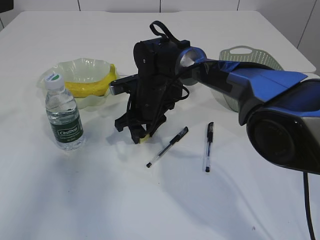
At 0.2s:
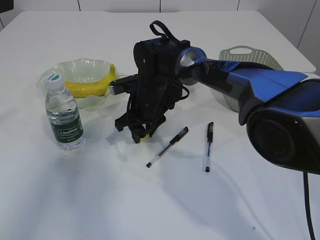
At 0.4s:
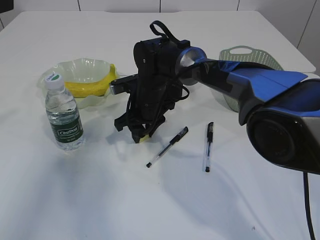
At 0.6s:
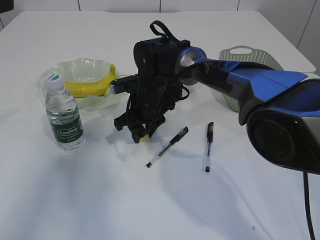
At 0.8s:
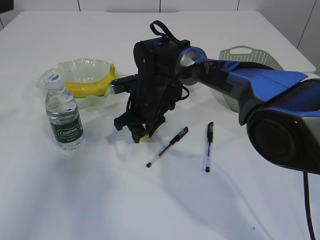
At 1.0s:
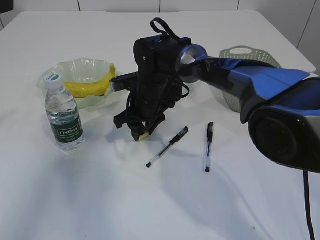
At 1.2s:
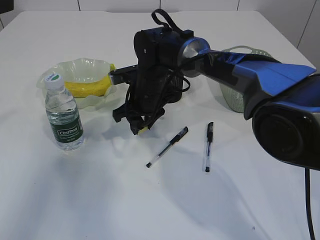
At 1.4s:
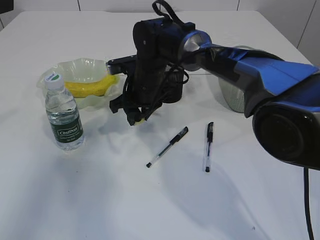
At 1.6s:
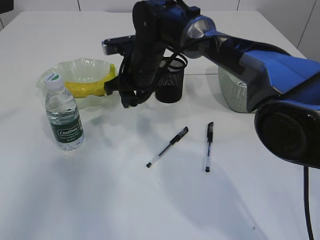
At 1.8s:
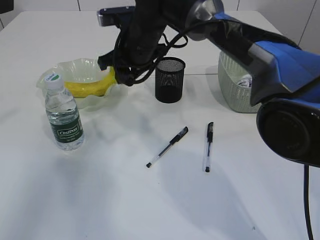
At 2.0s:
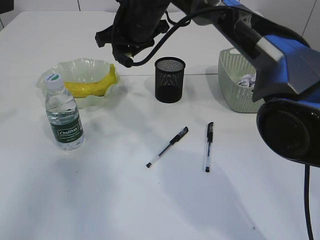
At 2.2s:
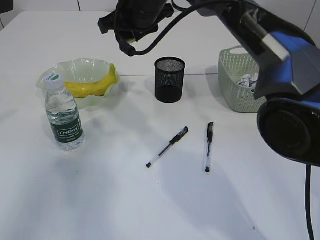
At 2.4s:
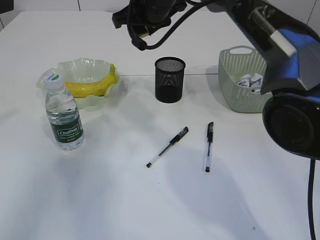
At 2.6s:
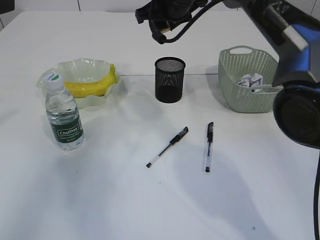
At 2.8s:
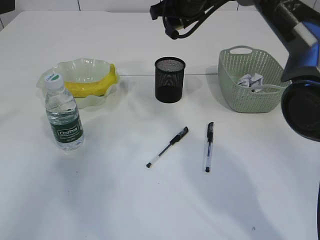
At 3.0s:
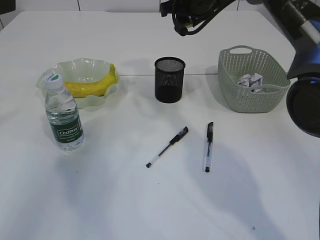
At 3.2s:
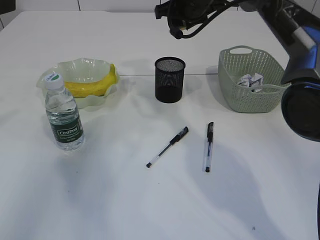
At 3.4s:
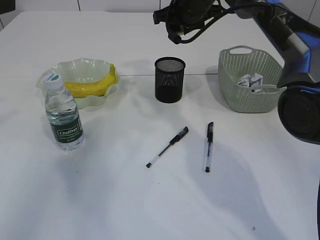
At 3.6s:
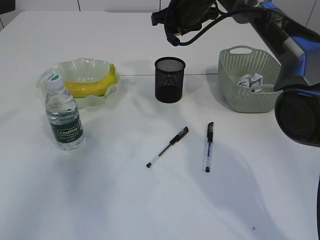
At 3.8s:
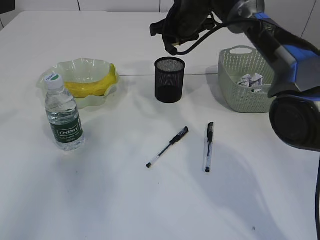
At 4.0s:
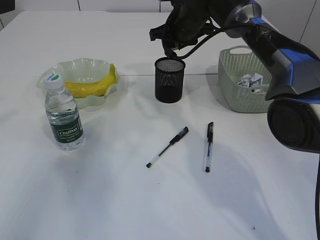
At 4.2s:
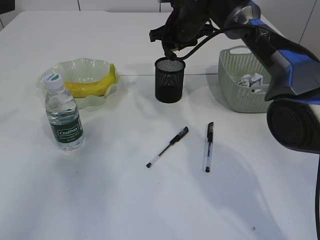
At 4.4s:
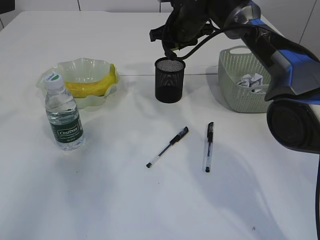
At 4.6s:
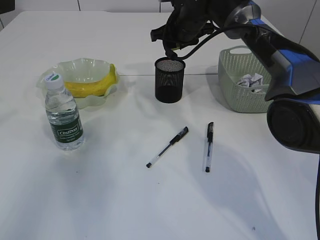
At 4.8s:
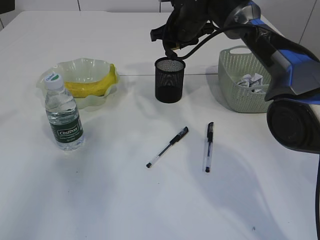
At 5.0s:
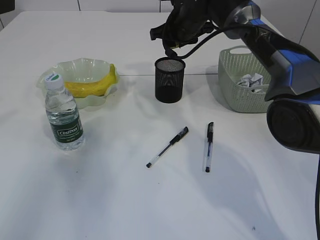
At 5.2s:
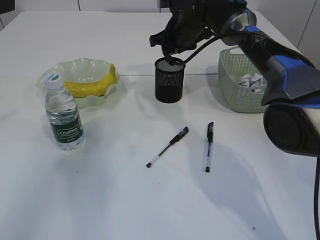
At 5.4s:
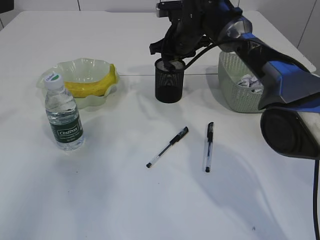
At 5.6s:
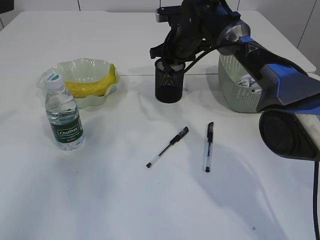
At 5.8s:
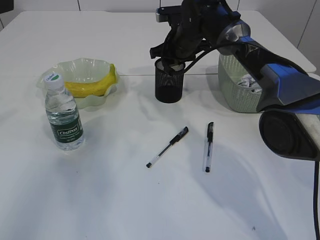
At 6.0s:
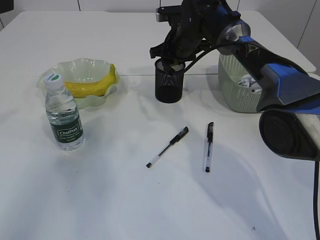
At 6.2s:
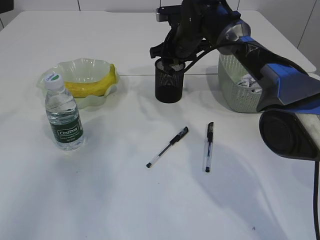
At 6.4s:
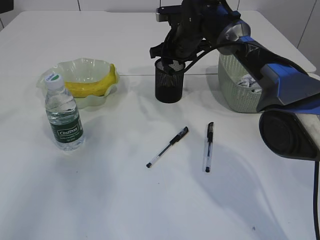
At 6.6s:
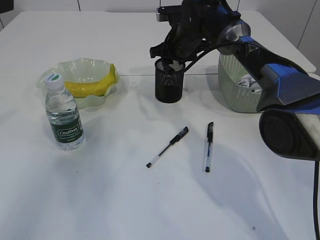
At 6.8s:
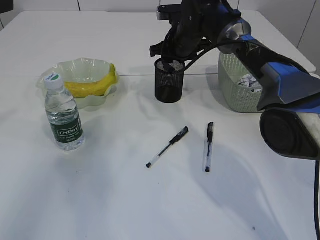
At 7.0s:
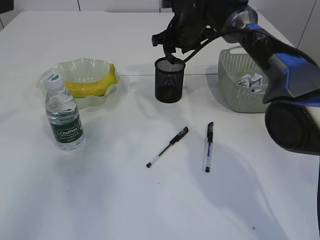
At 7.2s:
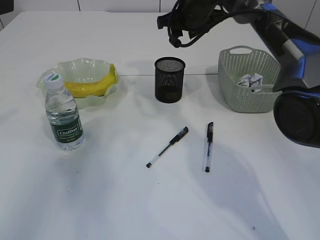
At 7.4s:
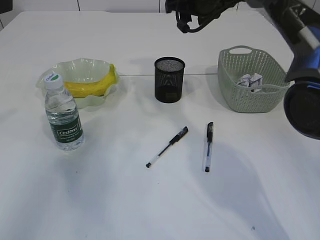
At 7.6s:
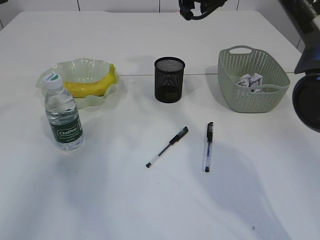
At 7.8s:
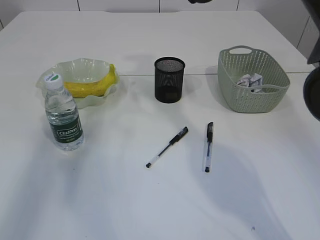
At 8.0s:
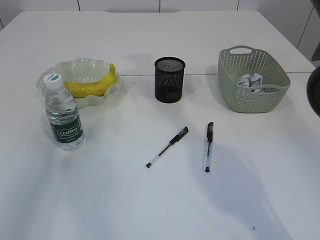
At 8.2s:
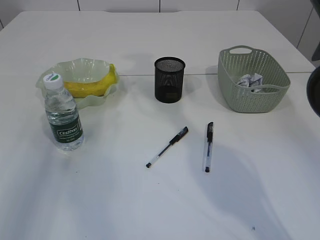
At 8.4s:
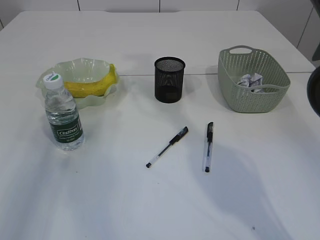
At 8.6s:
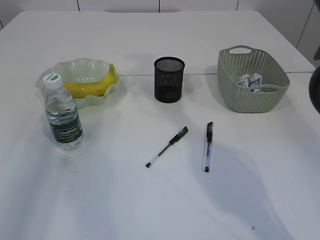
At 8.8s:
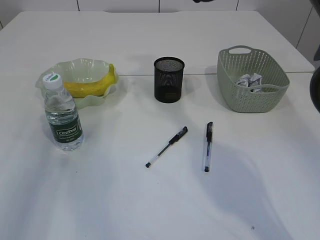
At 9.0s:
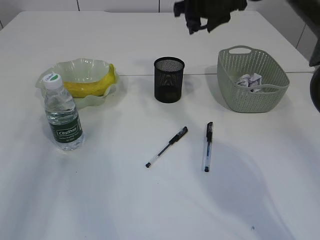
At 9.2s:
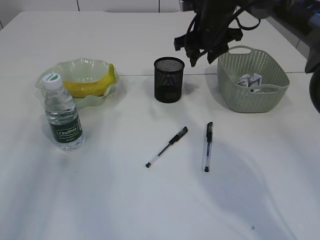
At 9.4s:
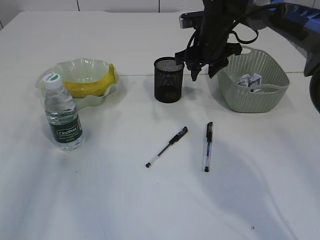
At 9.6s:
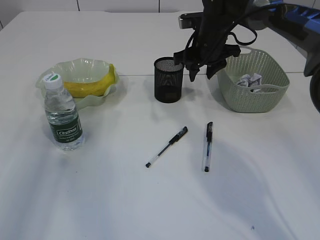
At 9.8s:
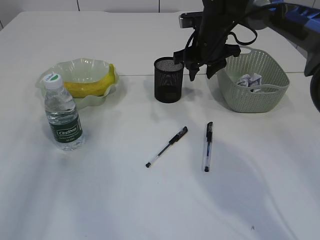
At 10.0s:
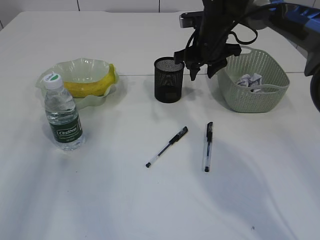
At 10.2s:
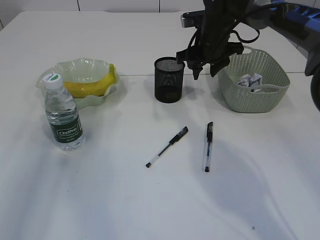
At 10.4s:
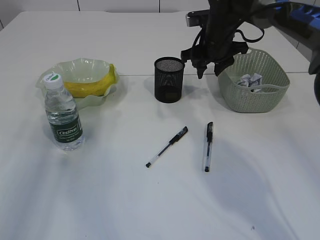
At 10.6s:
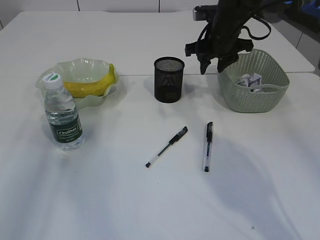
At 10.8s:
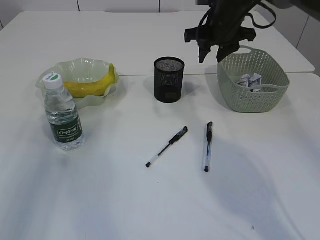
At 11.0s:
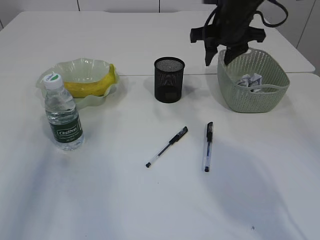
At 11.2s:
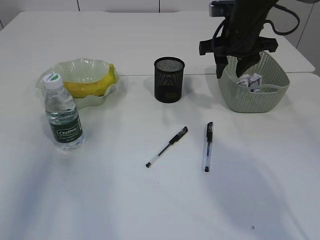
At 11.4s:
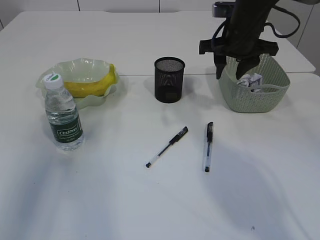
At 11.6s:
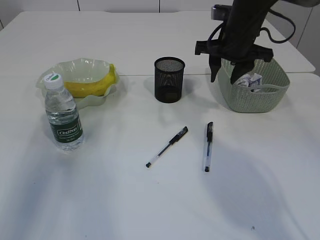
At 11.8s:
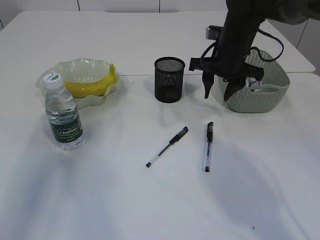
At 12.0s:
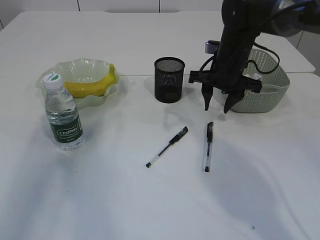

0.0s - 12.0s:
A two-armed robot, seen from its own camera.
Step, 1.6s - 7.0s: Place the eraser into the pen holder.
0.0s - 1.6s: The right gripper is displaced upward by roughly 5 cm.
1.6s - 3.0s: The right gripper moves upward and to the right, approximately 15 cm.
3.0s - 4.4s: The right gripper is displaced downward by approximately 5 cm.
4.4s - 6.0s: The grippers make only small movements.
6.0s - 7.6s: The right gripper travels upward by about 15 cm.
7.6s - 9.0s: The left gripper moves to the left, approximately 5 cm.
9.0s - 10.4s: The right gripper shifts approximately 10 cm downward.
10.4s - 12.0s: The right gripper changes place by roughly 5 cm.

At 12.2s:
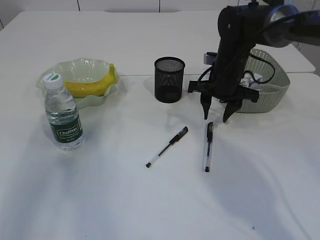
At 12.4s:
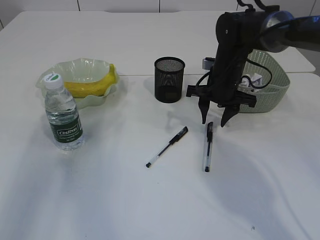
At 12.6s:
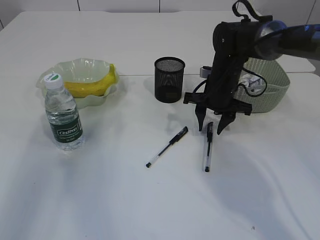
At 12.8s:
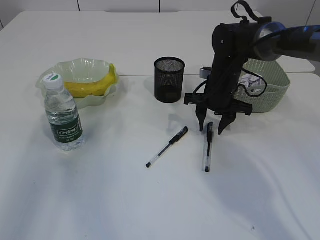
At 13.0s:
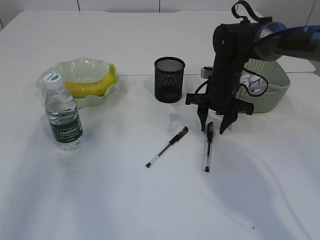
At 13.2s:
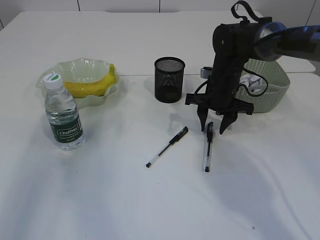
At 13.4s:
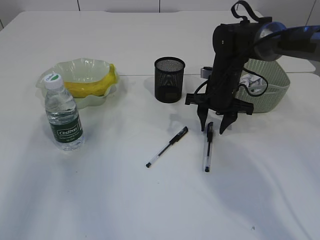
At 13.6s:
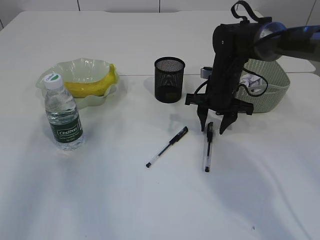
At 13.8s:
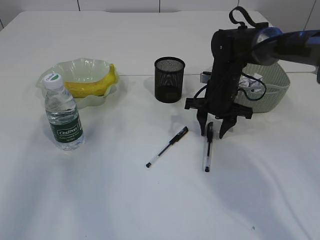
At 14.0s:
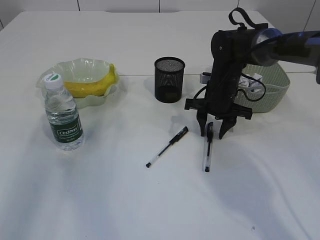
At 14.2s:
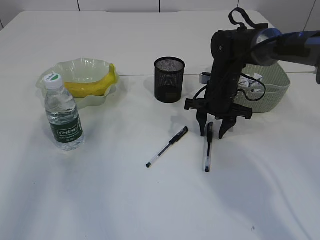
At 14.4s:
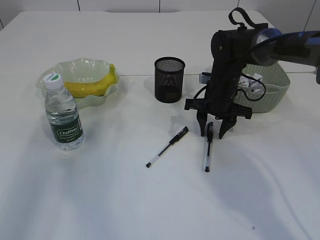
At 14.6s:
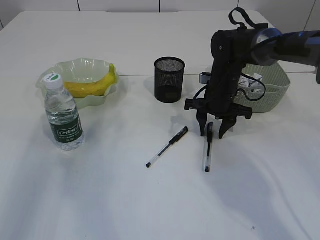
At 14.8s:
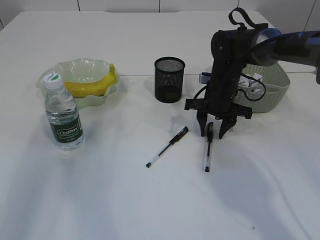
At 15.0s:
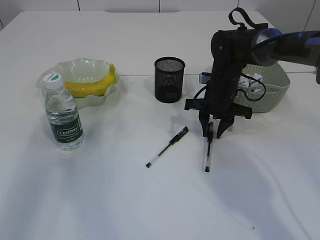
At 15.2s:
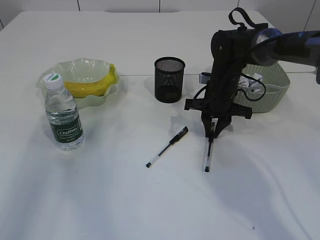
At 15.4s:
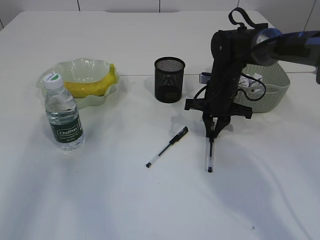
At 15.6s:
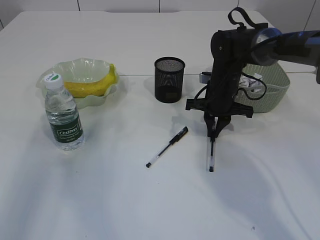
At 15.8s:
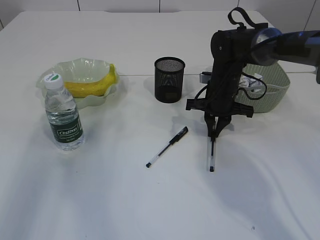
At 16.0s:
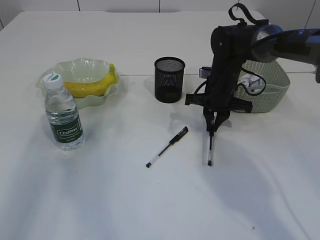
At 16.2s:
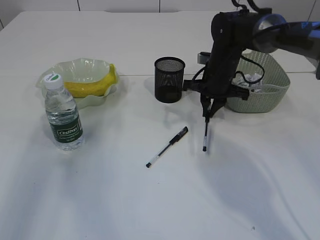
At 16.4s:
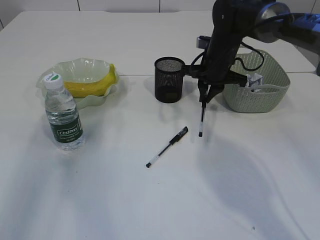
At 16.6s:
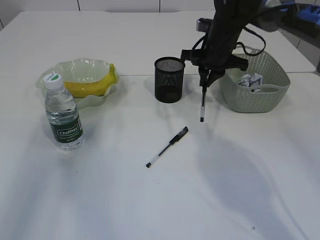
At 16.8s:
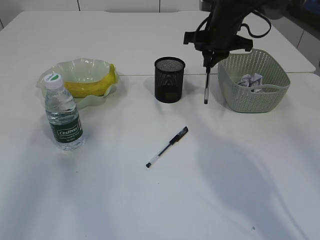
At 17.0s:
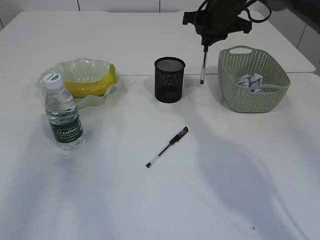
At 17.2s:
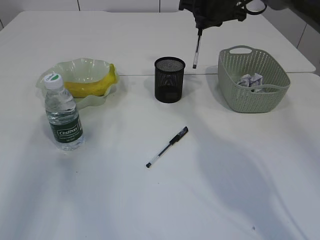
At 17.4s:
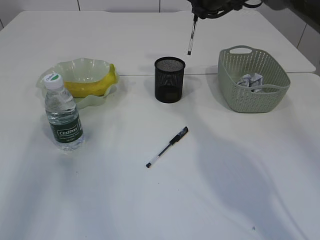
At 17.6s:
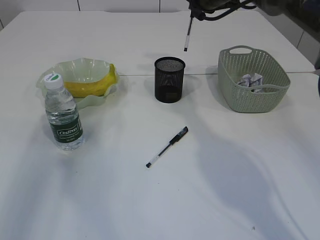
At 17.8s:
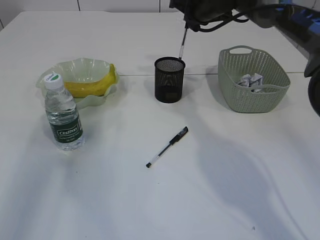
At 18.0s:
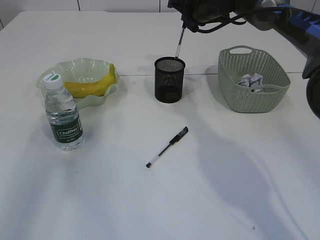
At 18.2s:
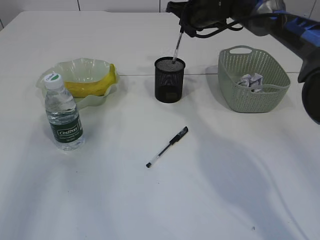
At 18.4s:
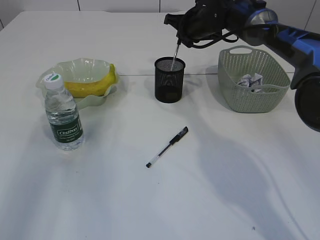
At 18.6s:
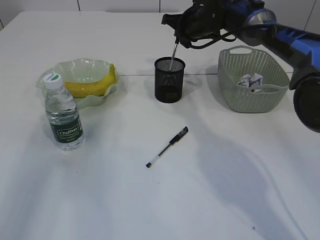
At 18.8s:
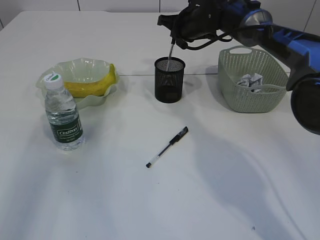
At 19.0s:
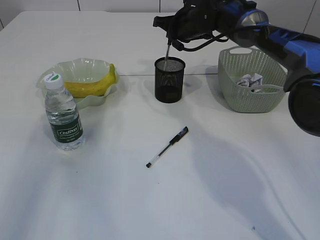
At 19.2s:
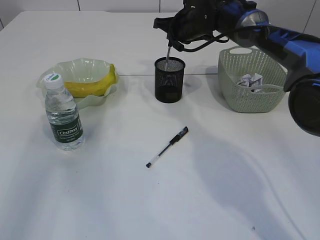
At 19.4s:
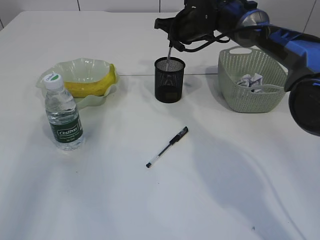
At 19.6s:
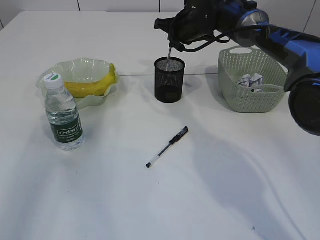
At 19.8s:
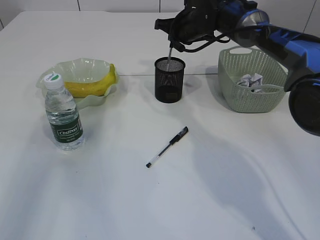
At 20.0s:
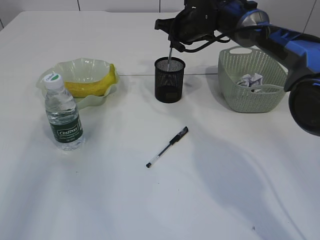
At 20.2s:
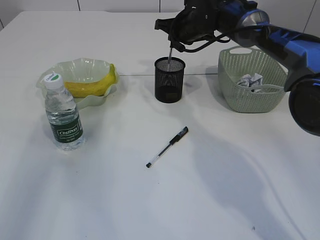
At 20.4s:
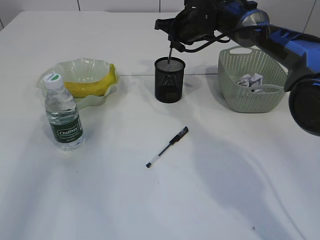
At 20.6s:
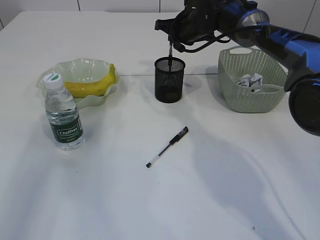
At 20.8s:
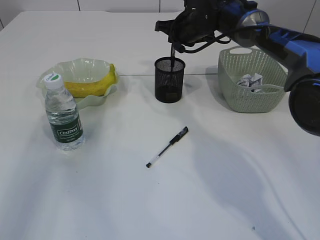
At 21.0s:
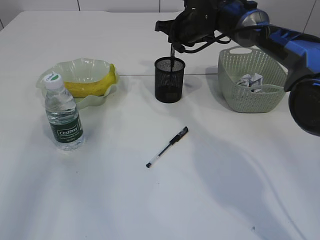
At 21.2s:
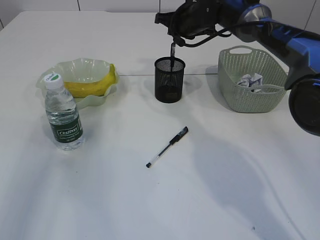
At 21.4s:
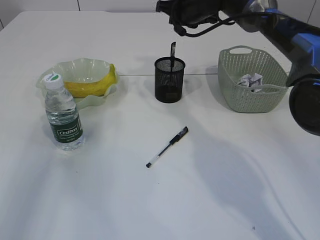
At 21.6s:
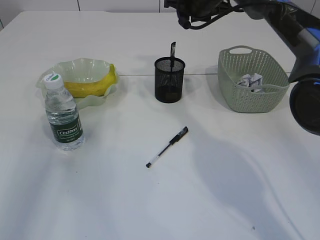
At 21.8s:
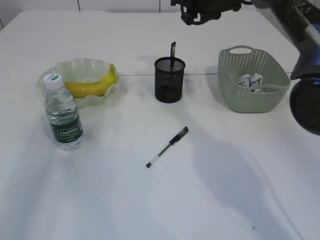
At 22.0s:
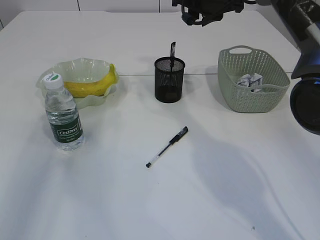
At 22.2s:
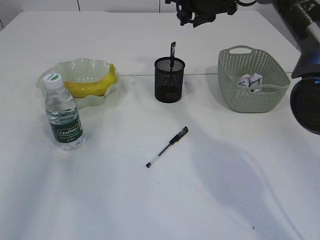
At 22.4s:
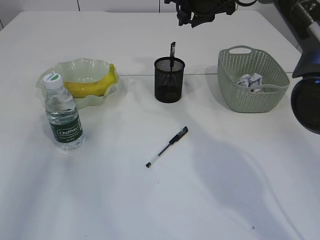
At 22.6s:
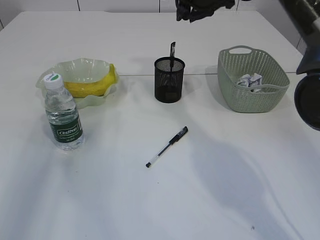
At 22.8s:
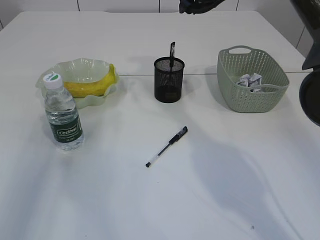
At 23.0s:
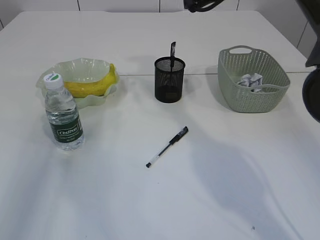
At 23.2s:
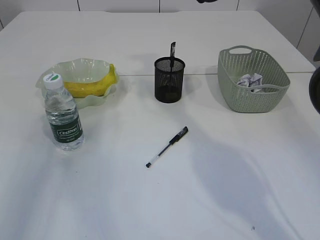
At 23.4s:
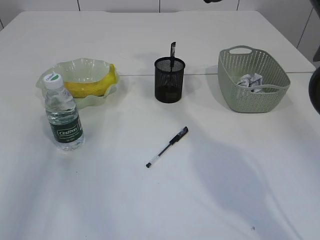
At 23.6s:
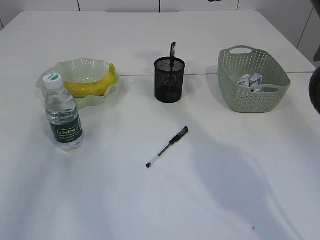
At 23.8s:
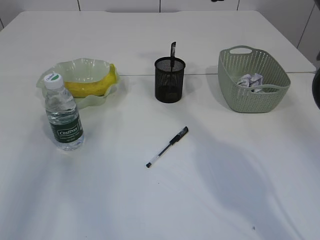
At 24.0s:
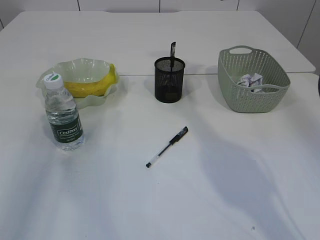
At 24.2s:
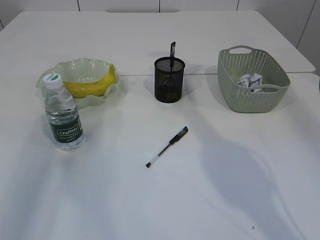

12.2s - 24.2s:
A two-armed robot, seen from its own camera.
Step, 12.2s - 16.2s: Pick up the pen with right arm.
Step, 16.4s - 21.2s: Place the pen into the pen holder.
12.2s - 13.8s: The grippers move only a little.
15.2s - 16.6s: The right gripper travels upward by roughly 10 cm.
16.6s - 18.2s: The right gripper moves forward, about 5 cm.
18.2s - 19.8s: The grippers stay close to where they were, moving slightly.
19.8s - 21.2s: Both grippers stay put.
21.2s - 22.6s: The right gripper is displaced upward and backward by roughly 10 cm.
22.6s - 24.2s: The right gripper goes some 5 cm to the right.
